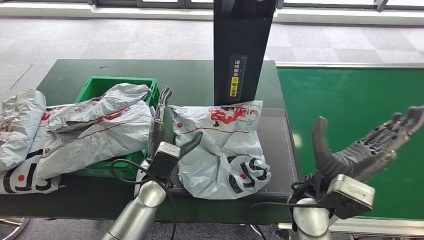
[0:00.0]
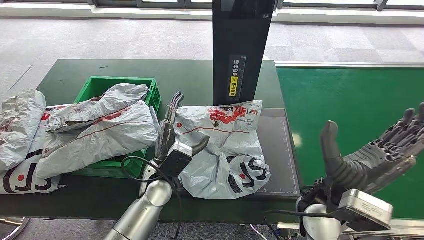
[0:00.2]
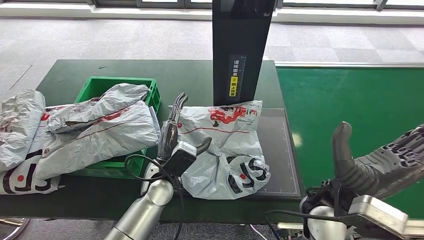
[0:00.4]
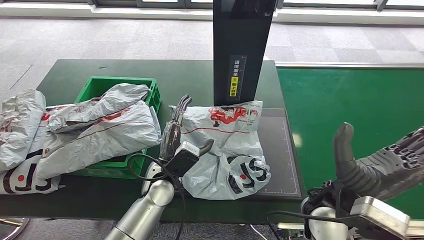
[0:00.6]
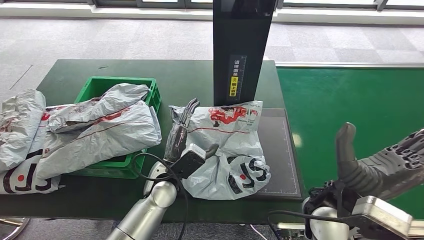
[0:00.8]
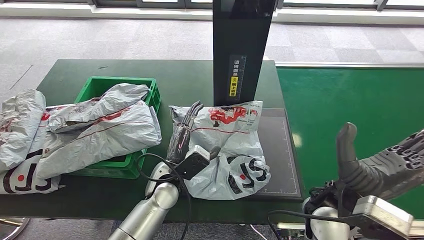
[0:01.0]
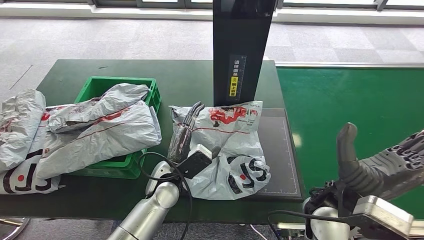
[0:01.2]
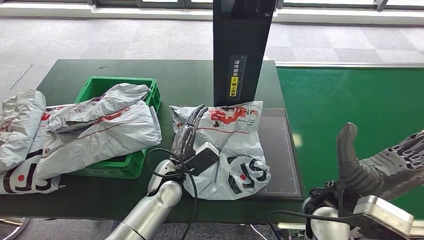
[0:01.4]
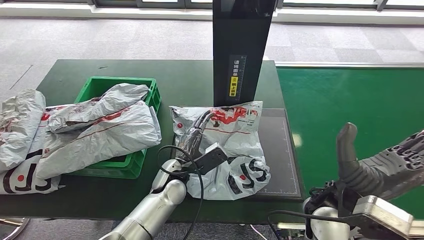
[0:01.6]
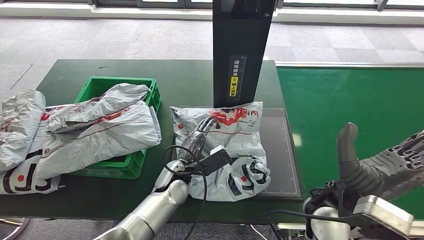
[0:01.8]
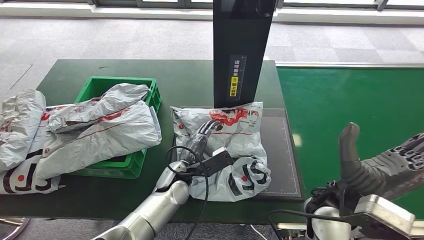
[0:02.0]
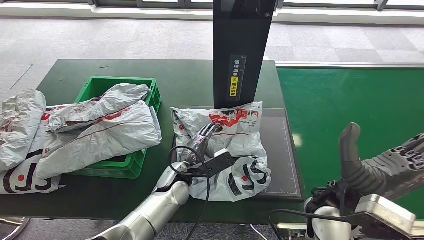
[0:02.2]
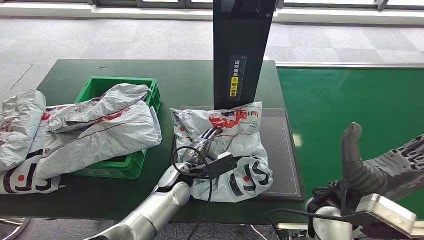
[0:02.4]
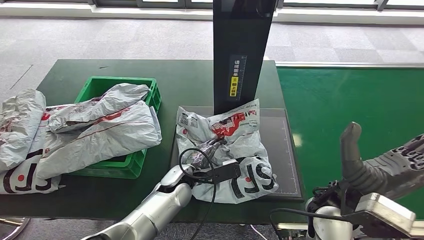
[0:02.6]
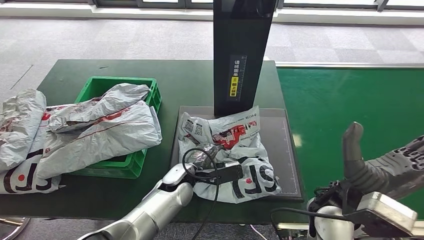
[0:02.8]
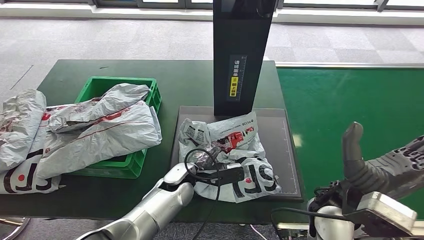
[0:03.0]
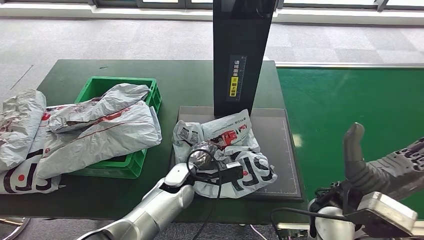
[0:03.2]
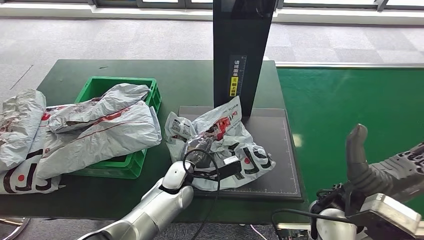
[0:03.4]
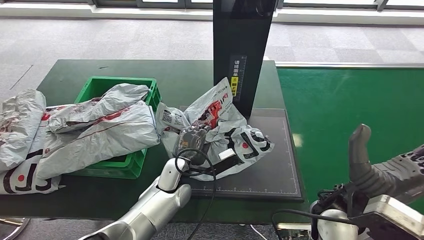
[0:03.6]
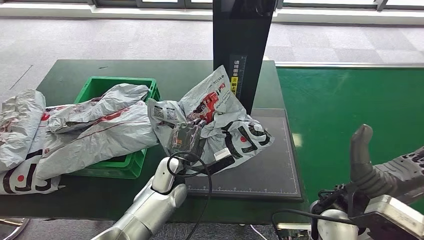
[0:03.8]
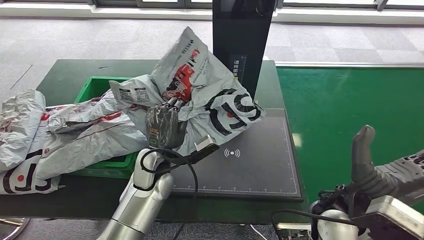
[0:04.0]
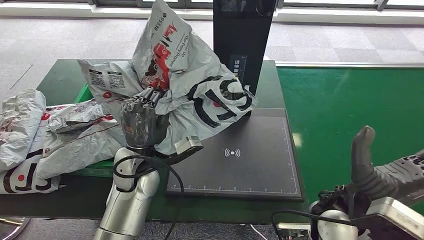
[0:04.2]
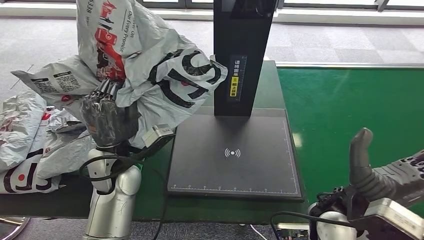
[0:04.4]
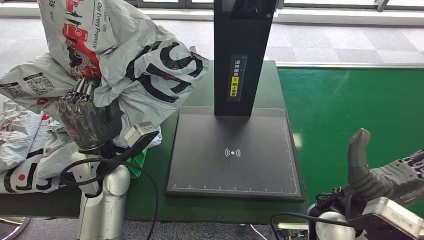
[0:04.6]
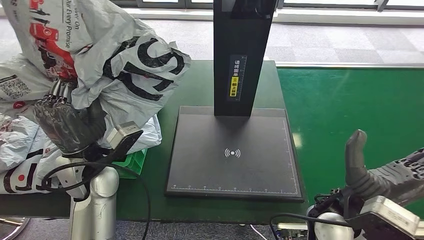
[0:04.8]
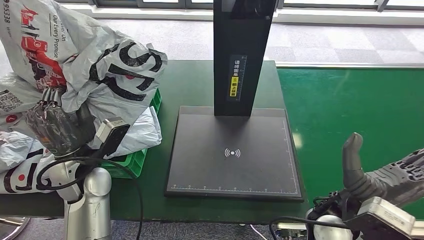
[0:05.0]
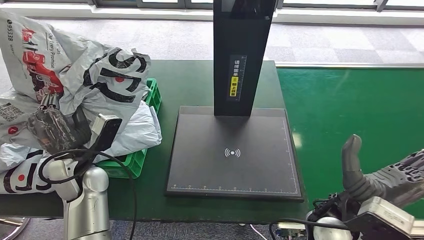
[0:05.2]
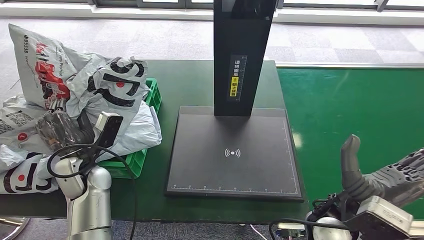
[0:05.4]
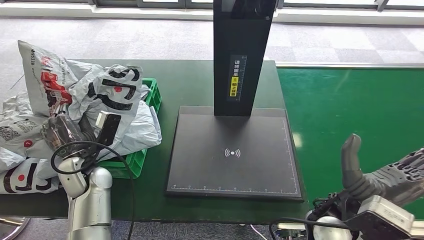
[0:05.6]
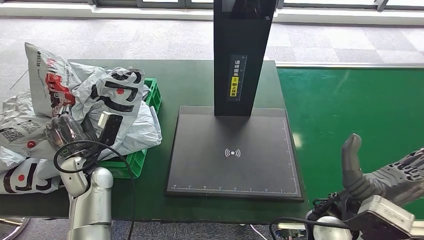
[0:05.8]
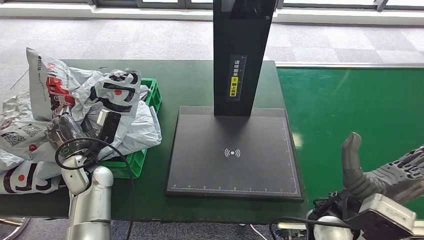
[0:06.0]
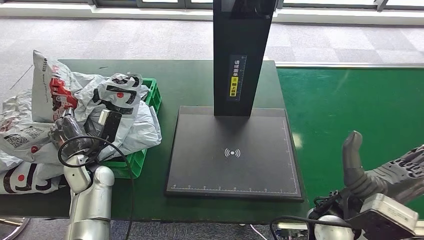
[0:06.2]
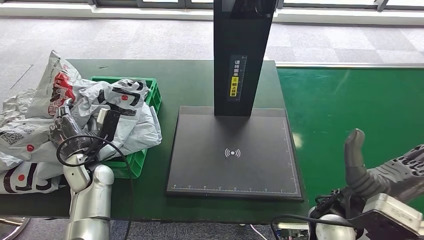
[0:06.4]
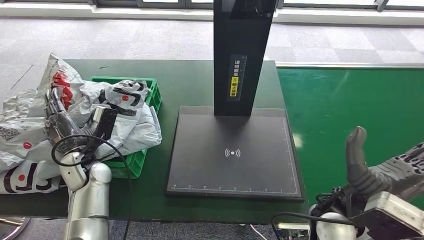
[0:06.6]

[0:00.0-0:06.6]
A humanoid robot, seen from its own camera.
Step, 0:00.0 to 0:04.0: Pick up the parcel from the inbound machine.
Step, 0:04.4 to 0:06.6: Place the parcel into the delivery box.
0:00.0 to 0:01.6: The left hand shifts by approximately 5 cm.

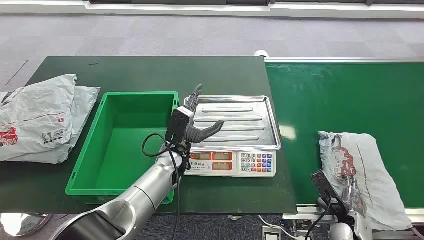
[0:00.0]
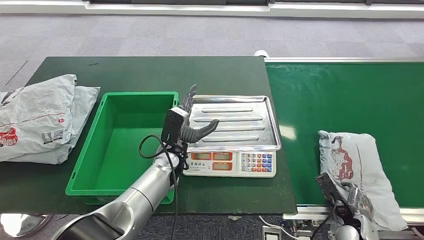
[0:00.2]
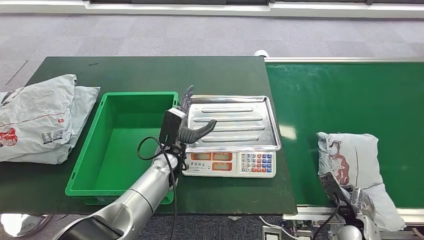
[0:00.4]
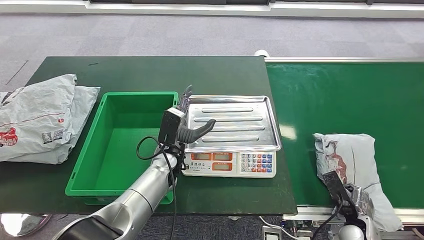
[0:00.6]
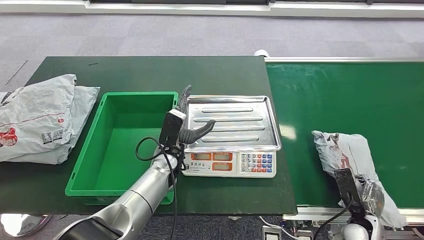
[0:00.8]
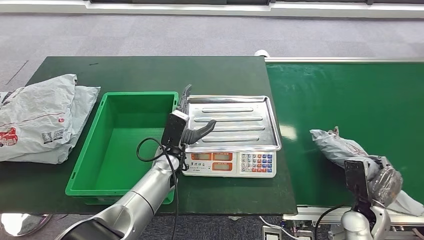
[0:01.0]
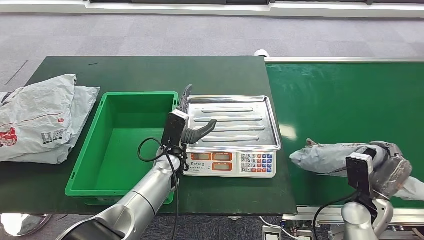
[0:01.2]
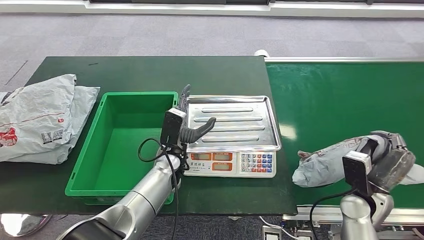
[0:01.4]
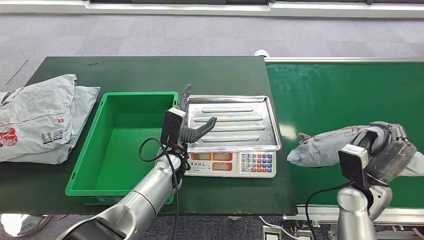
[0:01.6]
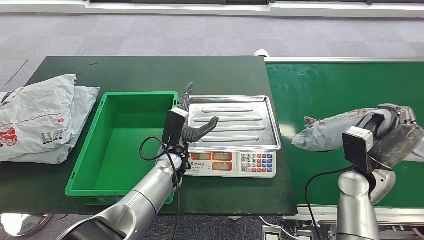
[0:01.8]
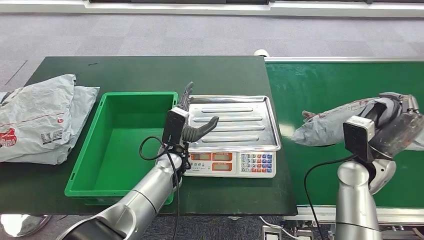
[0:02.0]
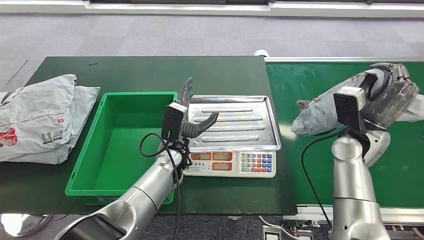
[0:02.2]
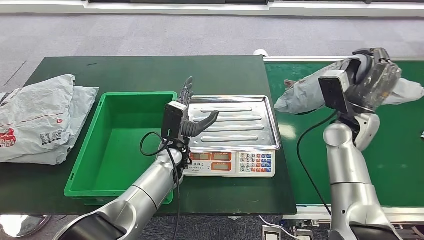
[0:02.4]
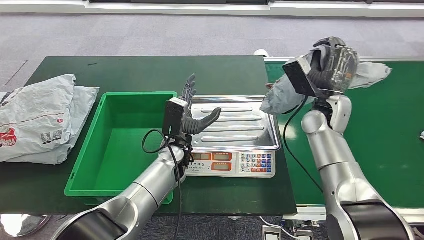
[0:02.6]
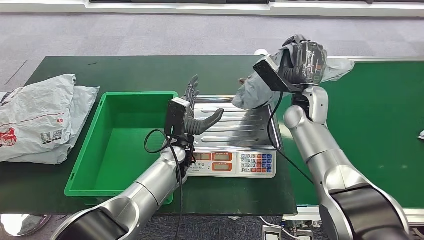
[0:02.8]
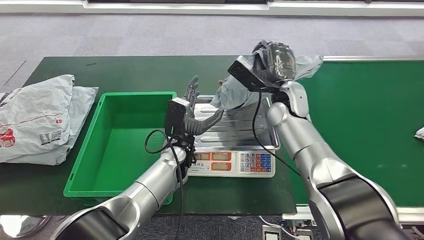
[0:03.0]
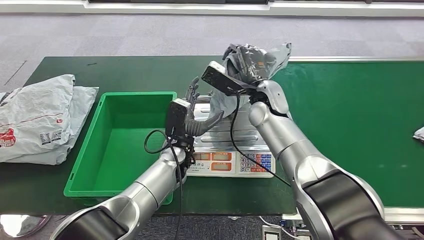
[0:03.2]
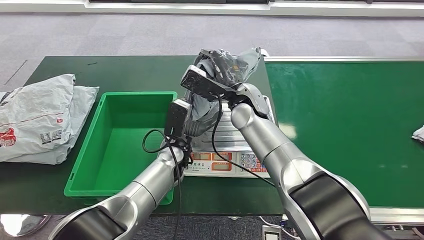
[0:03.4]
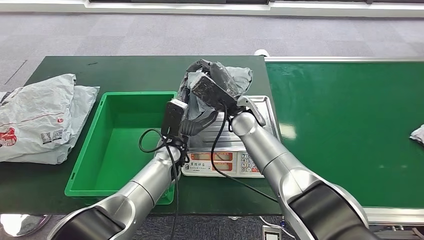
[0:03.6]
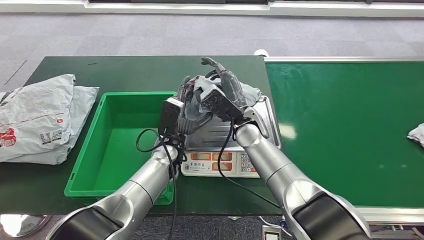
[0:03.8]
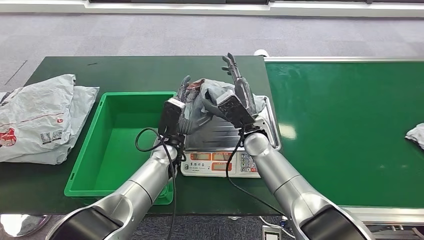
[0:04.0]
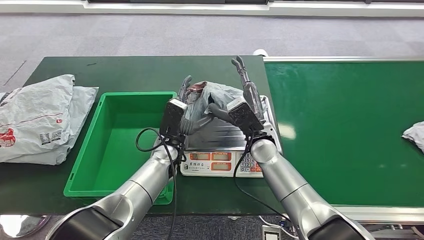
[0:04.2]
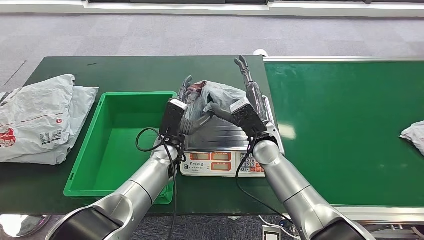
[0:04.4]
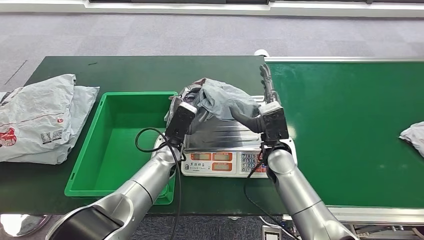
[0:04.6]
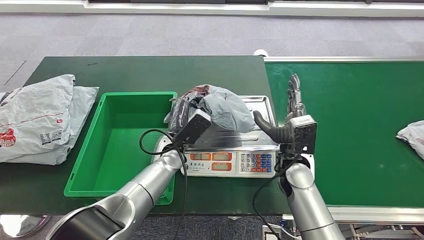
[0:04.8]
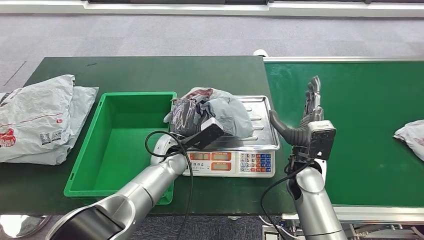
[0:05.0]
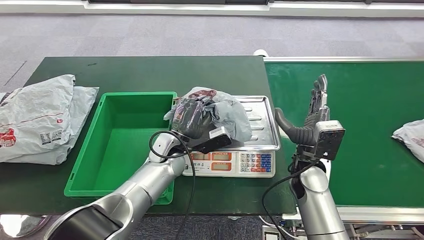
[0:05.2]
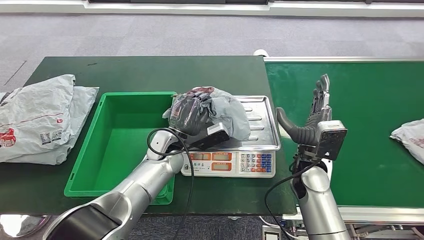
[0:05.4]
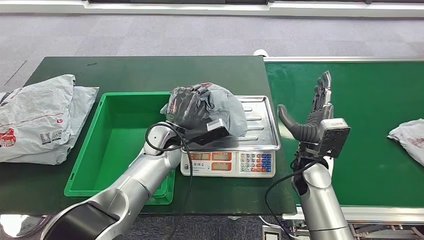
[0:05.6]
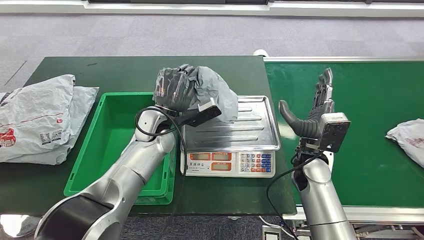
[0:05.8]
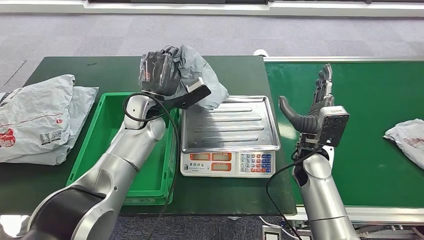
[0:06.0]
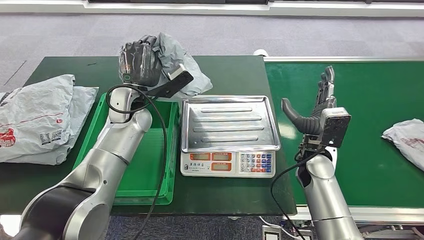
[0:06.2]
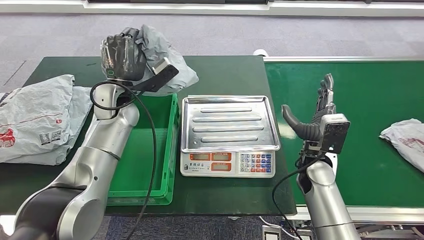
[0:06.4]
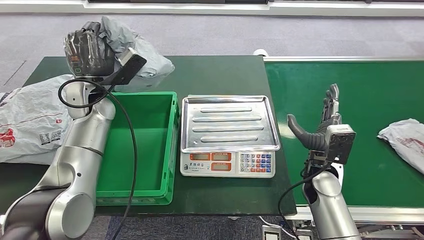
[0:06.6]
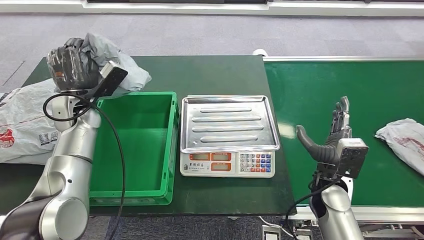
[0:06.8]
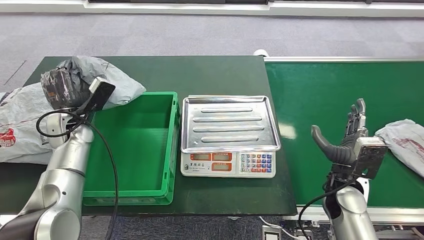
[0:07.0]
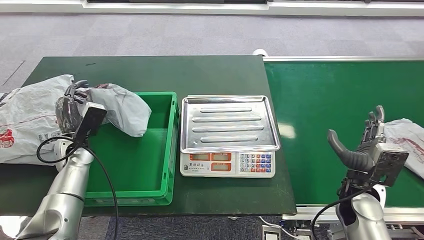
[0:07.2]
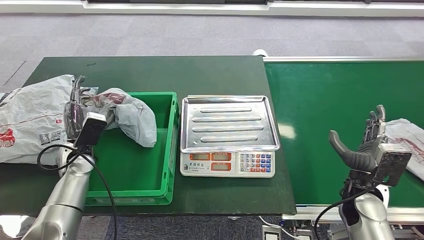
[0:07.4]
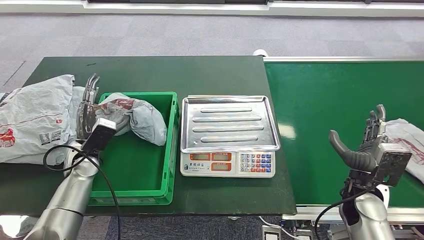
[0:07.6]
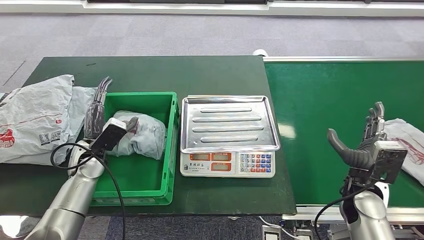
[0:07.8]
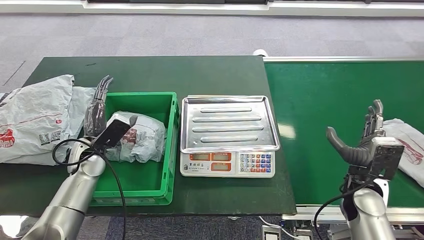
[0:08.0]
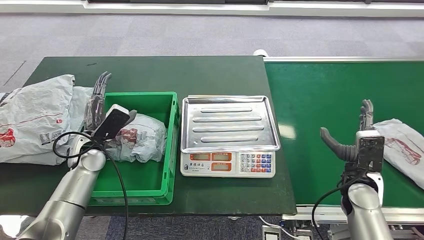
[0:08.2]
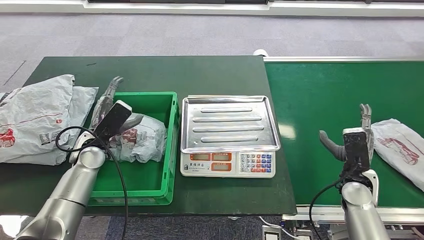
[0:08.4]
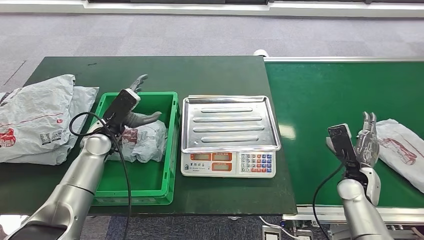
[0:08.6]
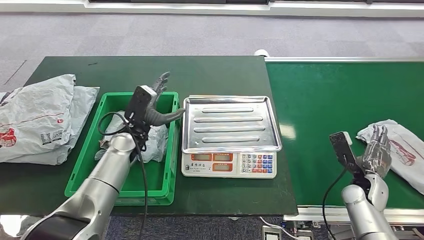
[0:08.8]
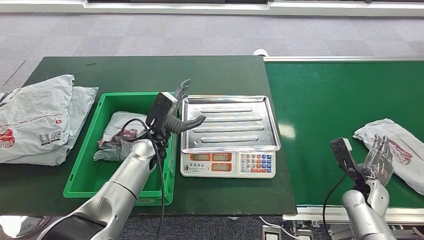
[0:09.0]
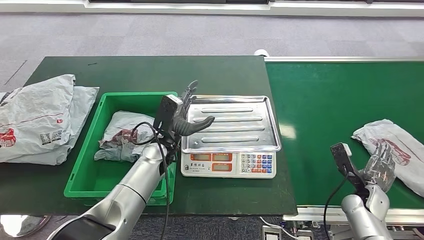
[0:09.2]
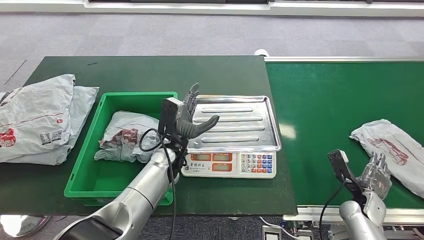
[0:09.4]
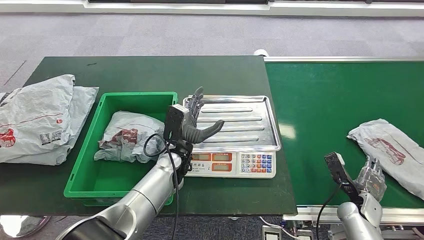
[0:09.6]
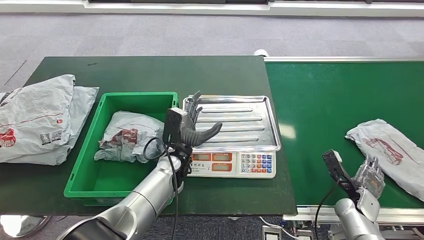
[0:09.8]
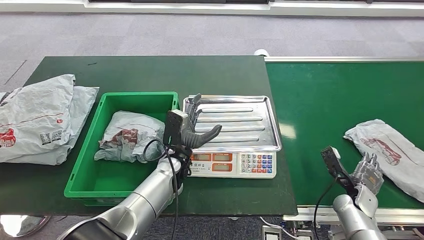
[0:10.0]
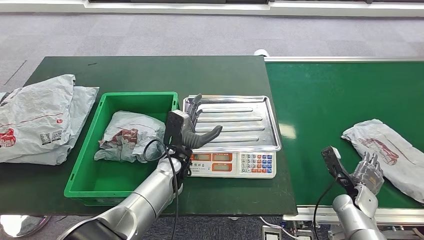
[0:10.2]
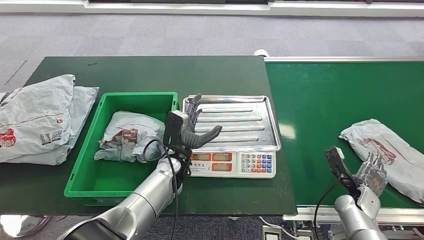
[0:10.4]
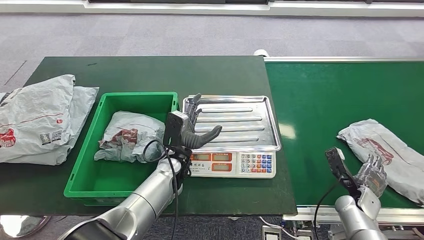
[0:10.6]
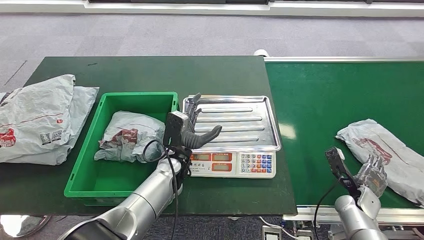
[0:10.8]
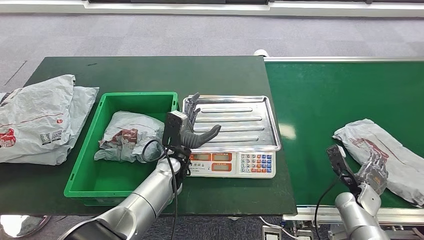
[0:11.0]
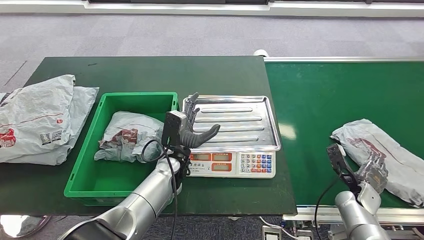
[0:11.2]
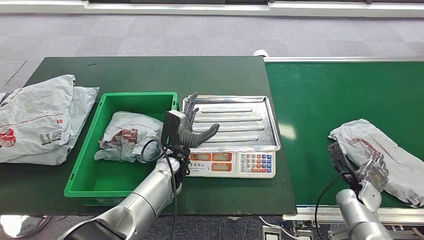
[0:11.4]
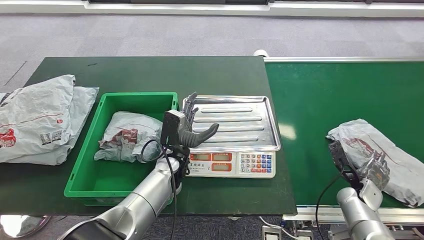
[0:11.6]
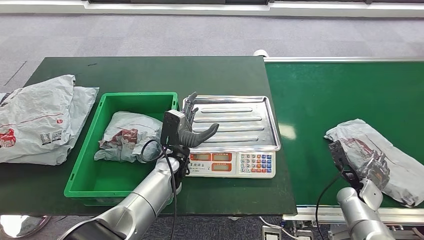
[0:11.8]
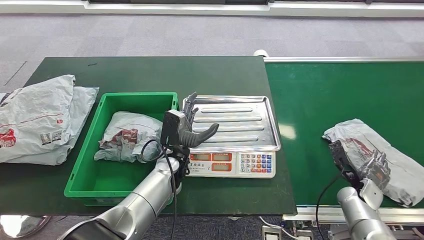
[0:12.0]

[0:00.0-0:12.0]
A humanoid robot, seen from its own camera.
Step, 0:00.0 to 0:01.8: Take the parcel off the conveyor belt.
Step, 0:02.6 to 0:04.6: Place the parcel onto the inbound machine.
Step, 0:04.8 to 0:07.0: Pick up the parcel from the inbound machine.
Step, 0:07.2 to 0:09.8: Put the parcel inside the courier box.
0:07.6 to 0:09.0: The left hand moves to the right, about 20 cm, while the right hand moves downward and to the right, about 10 cm.
0:09.0 to 0:10.4: The left hand moves to the right, approximately 5 cm.
0:10.4 to 0:12.0: The hands make only small movements.
